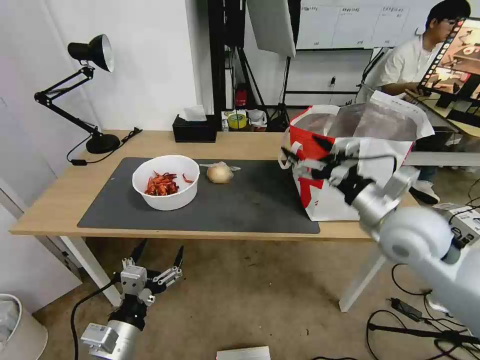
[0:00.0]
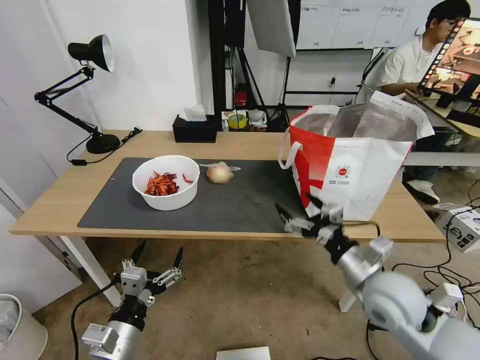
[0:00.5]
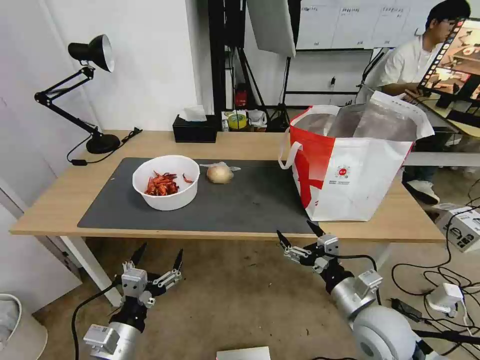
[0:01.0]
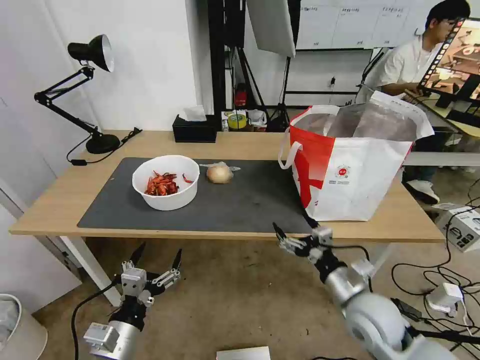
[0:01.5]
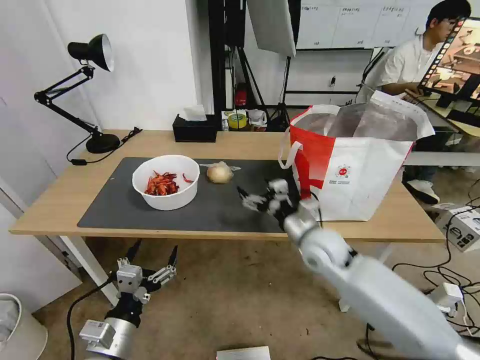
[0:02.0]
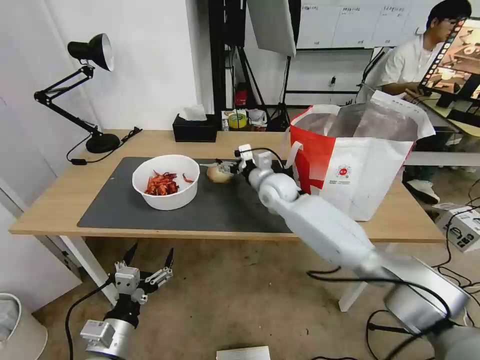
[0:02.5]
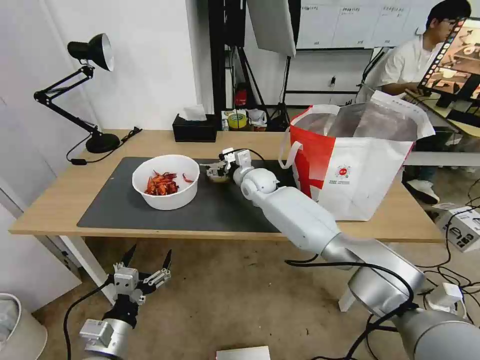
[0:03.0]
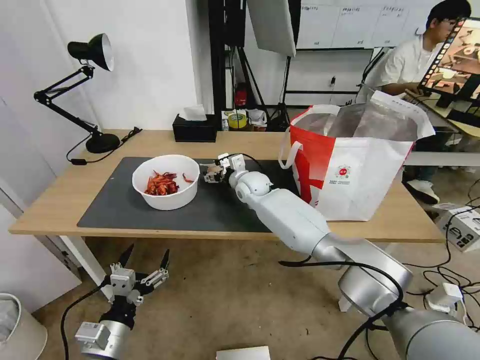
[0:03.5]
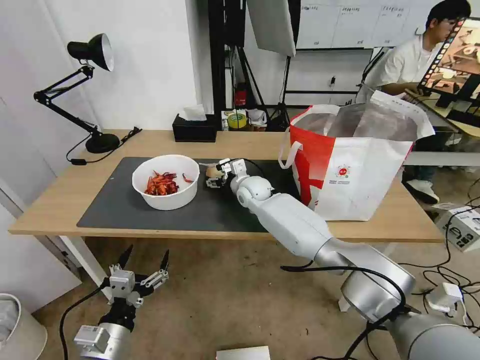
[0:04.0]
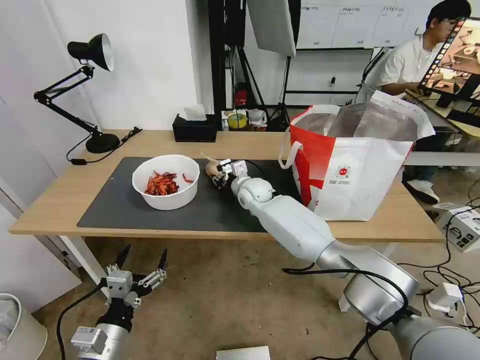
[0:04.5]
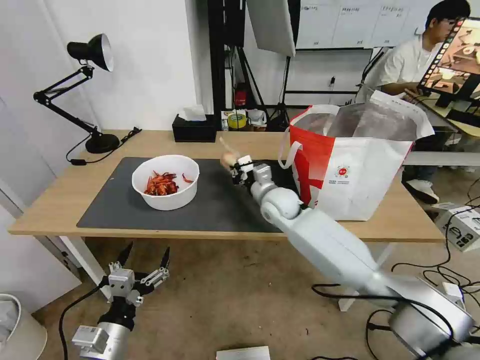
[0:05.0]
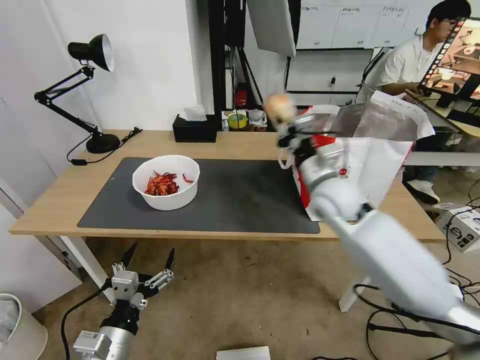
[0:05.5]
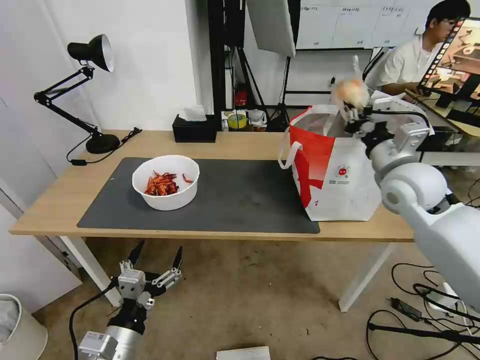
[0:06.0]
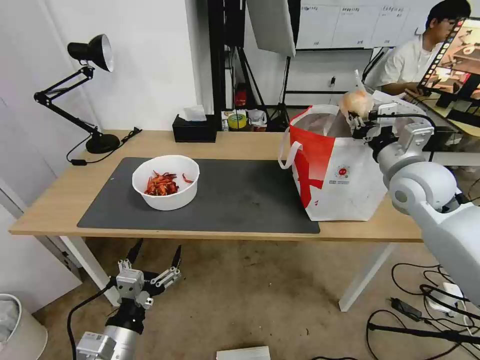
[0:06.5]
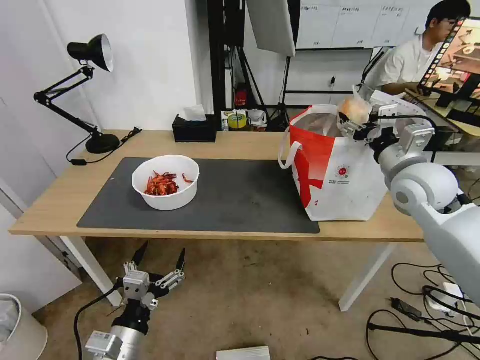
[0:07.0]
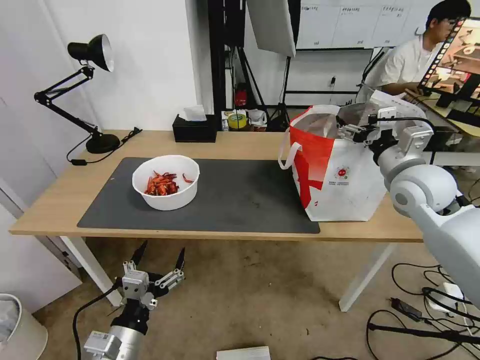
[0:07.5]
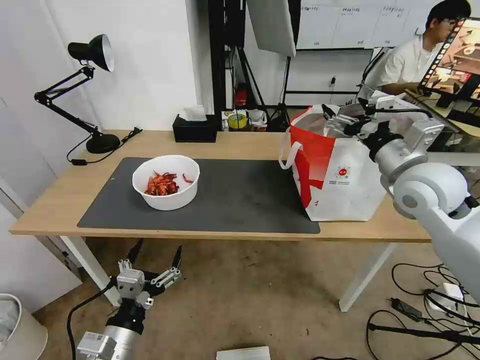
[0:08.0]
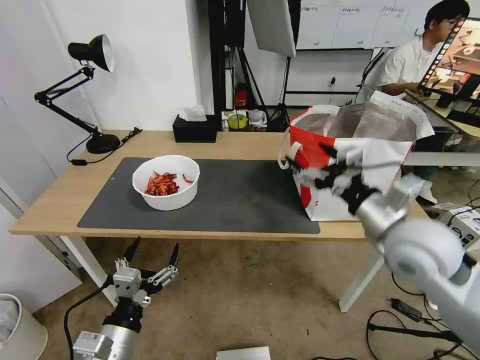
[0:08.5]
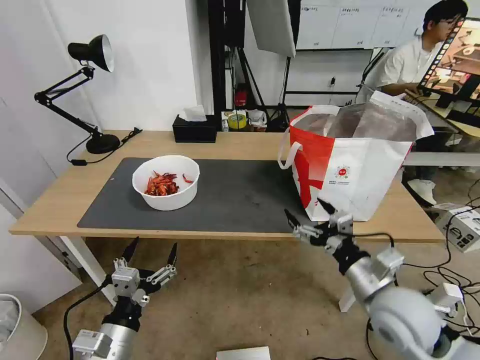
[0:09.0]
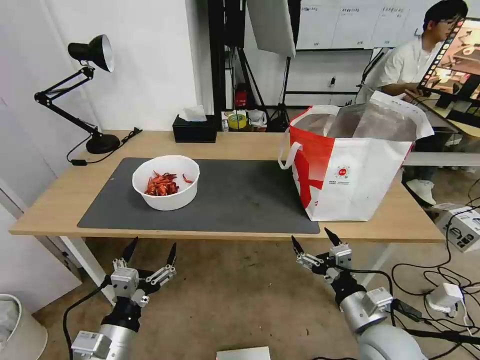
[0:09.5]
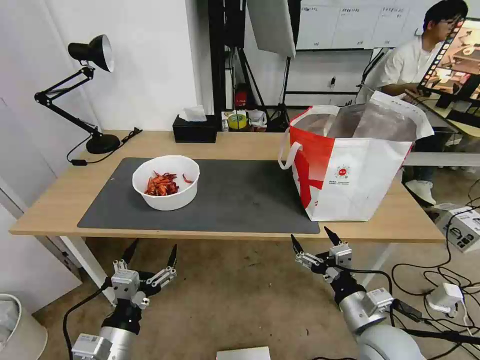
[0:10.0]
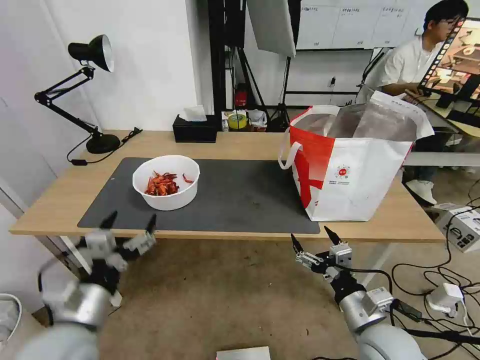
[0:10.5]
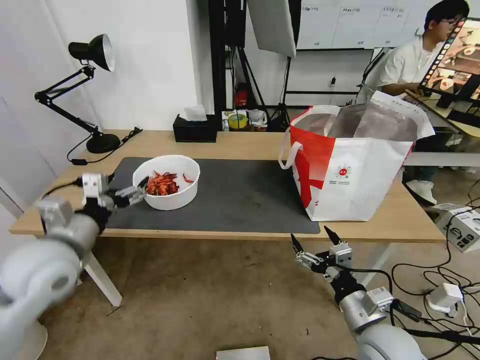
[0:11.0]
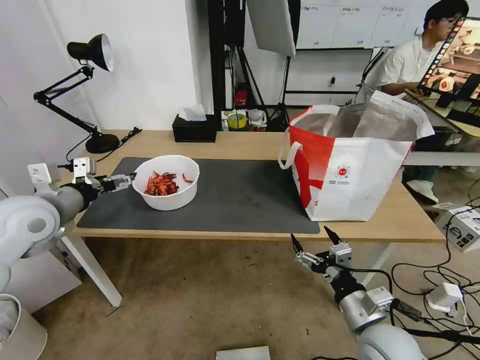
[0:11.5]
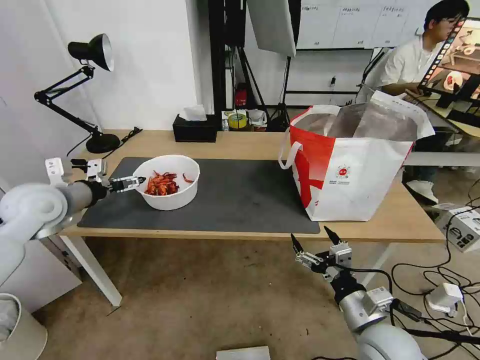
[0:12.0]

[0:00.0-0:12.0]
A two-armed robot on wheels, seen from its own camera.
Task of the whole recording: Pick up the trash from the table and place it into the takeout bag.
0:00.0 to 0:02.0: The right gripper moves downward and to the left, some 15 cm, and goes backward and returns, some 10 cm each way.
0:02.0 to 0:04.0: The right gripper heads forward and to the left, covering about 25 cm.
0:04.0 to 0:06.0: The right gripper goes some 35 cm to the right, upward and backward, and closes up.
0:06.0 to 0:08.0: The right gripper opens up.
0:08.0 to 0:10.0: The right gripper moves downward and backward, roughly 30 cm.
0:10.0 to 0:12.0: The left gripper shifts about 35 cm forward, upward and to the left.

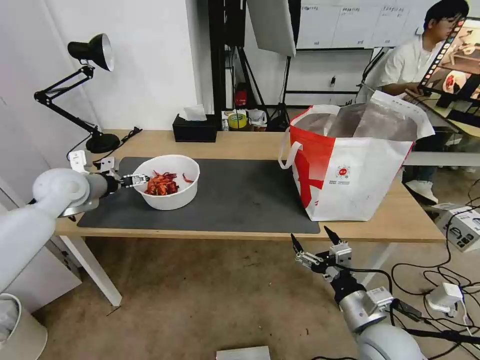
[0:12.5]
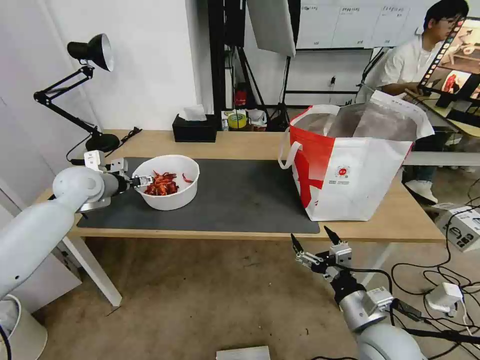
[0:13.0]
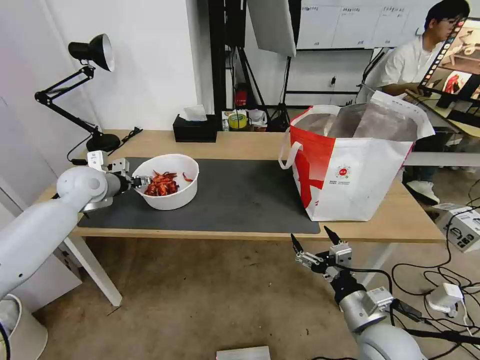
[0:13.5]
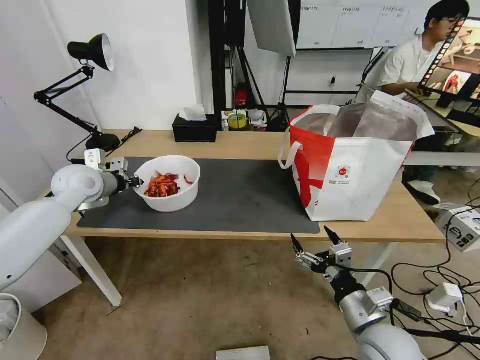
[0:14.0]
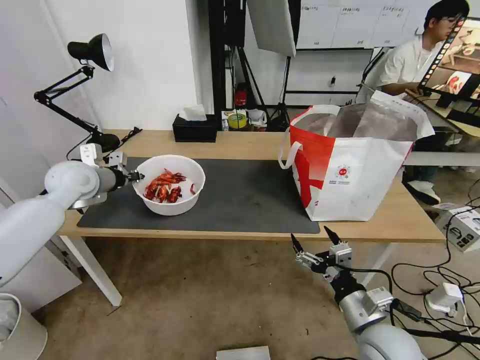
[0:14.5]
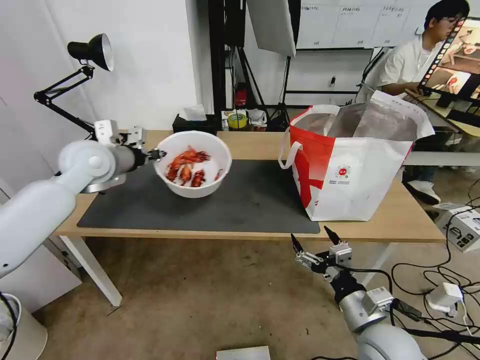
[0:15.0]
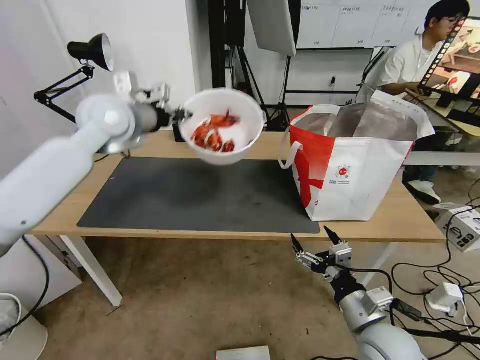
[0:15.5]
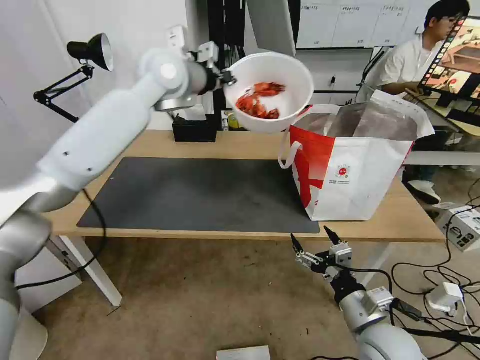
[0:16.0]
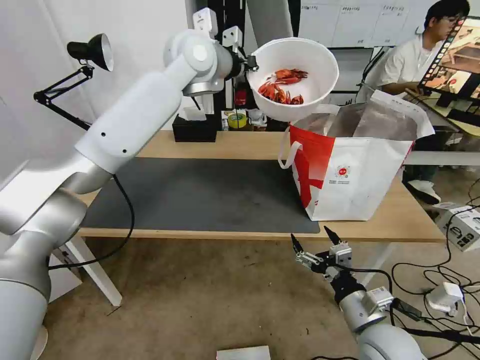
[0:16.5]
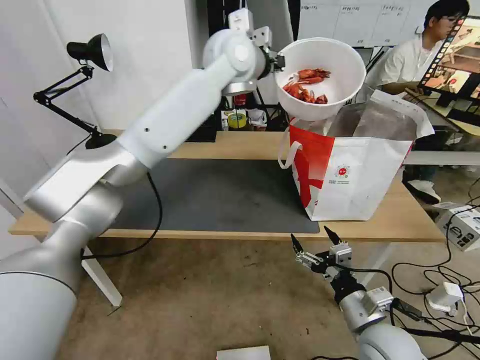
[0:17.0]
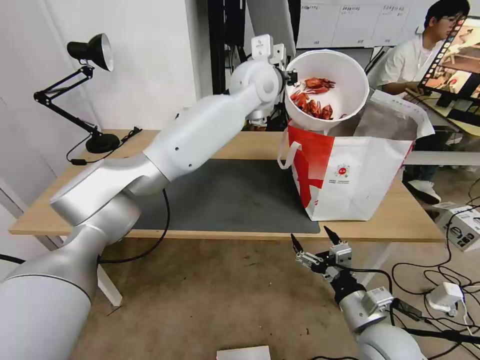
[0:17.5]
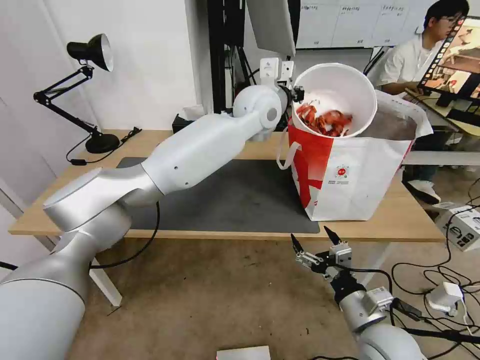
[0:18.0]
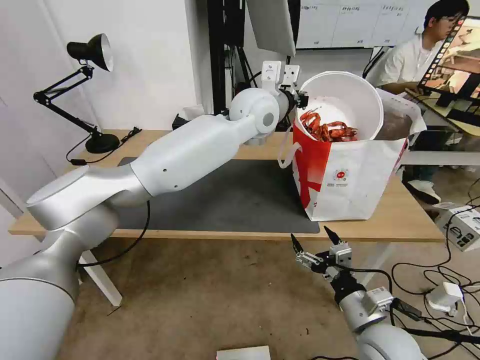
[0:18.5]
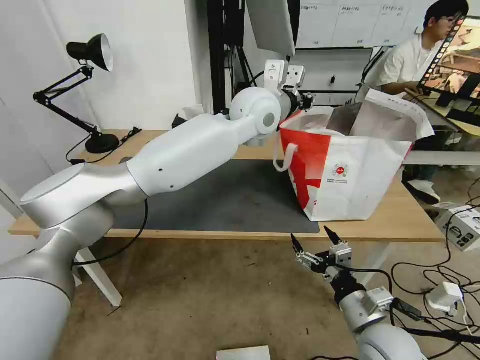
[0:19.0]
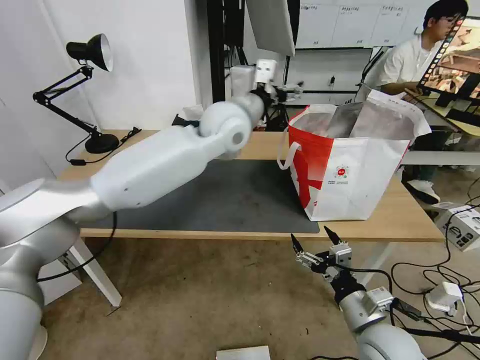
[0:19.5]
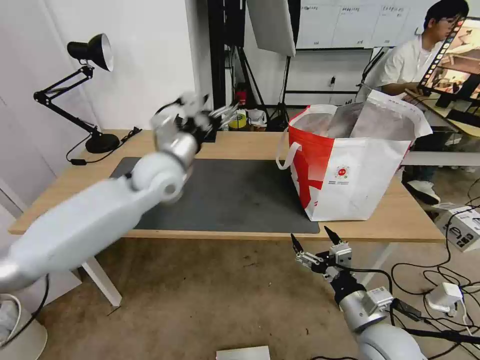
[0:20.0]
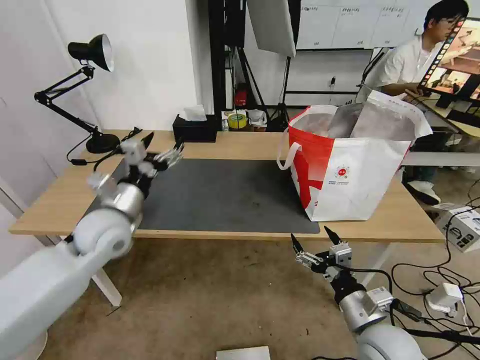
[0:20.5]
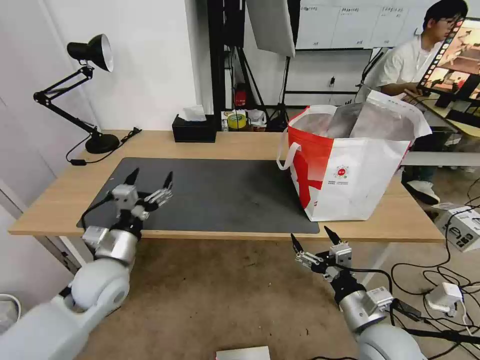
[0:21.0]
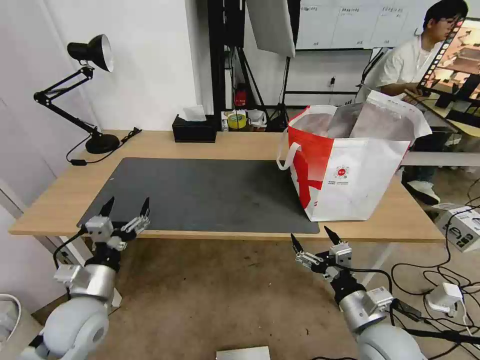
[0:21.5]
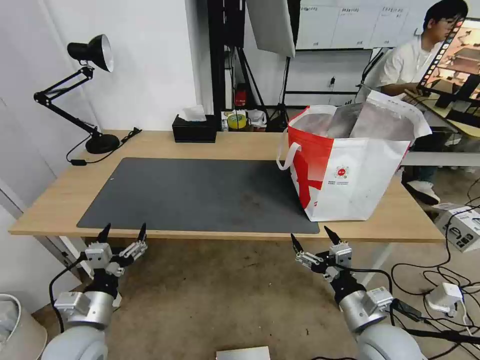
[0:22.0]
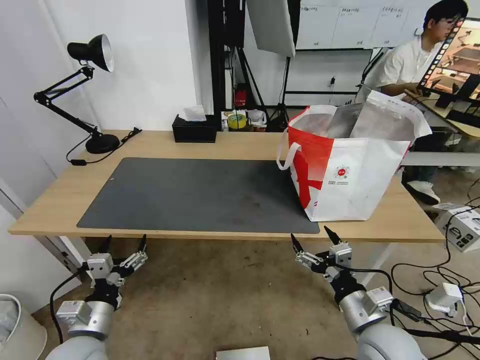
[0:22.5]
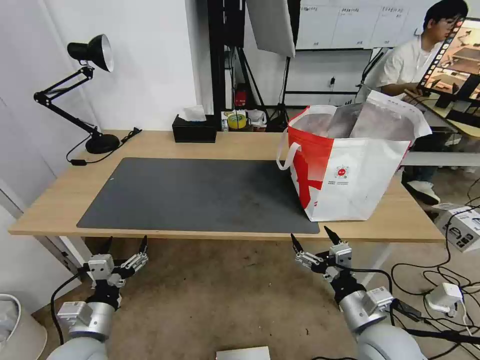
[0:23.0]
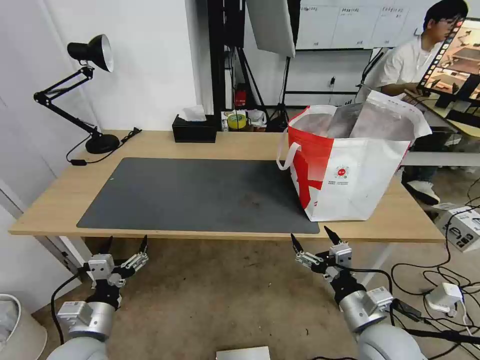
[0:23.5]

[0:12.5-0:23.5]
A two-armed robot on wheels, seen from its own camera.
Task of the whole recording: Pick up the trash from the table and place it into the takeout bag.
0:12.5 to 0:14.5: The left gripper closes its fingers.
0:14.5 to 0:16.0: The left gripper is displaced to the right and upward by roughly 30 cm.
0:16.0 to 0:18.0: The left gripper shifts approximately 20 cm to the right.
0:18.0 to 0:20.0: The left gripper is displaced to the left, backward and downward by about 25 cm, and opens up.
0:20.0 to 0:21.5: The left gripper moves backward, downward and to the left, about 30 cm.
0:21.5 to 0:23.5: The left gripper is displaced backward by about 5 cm.
